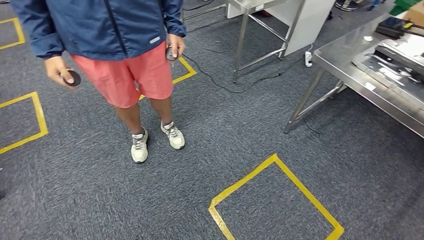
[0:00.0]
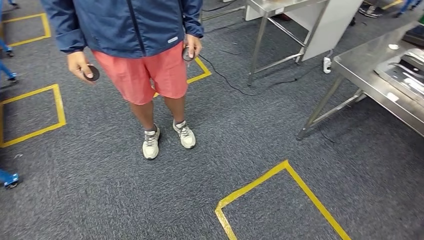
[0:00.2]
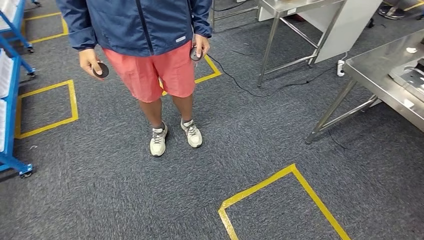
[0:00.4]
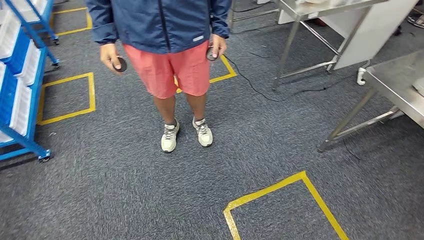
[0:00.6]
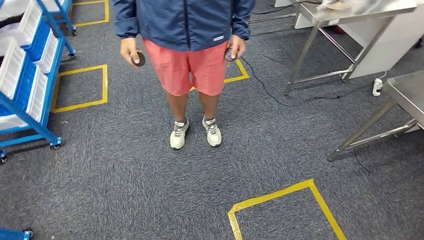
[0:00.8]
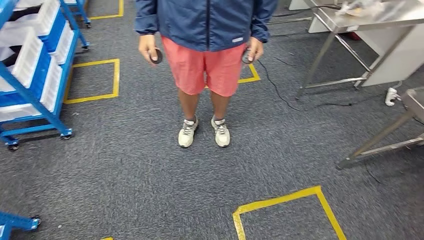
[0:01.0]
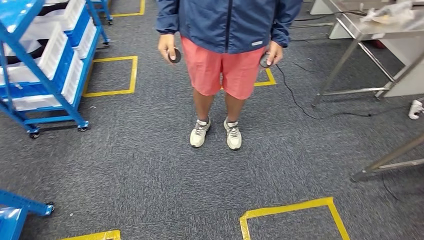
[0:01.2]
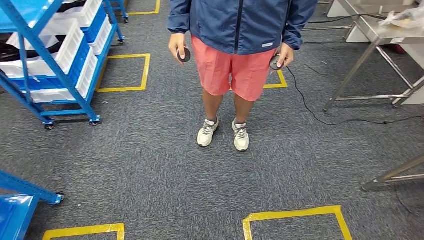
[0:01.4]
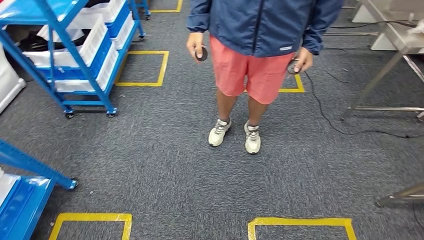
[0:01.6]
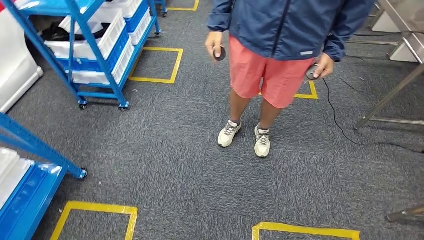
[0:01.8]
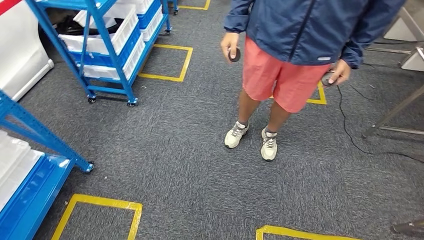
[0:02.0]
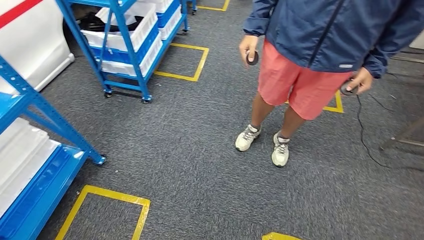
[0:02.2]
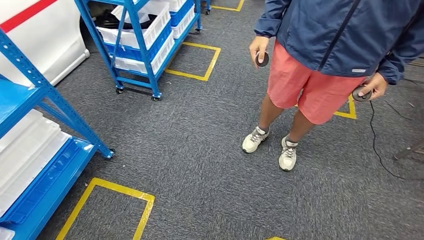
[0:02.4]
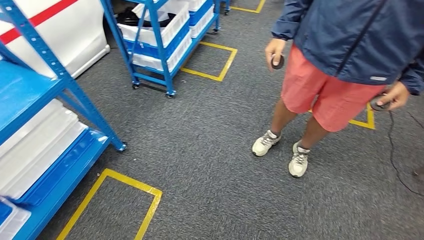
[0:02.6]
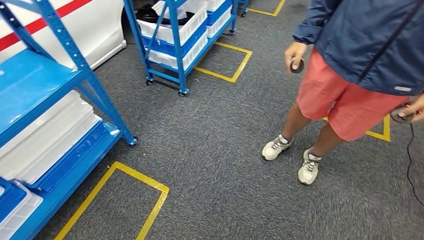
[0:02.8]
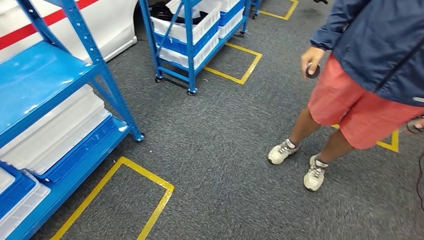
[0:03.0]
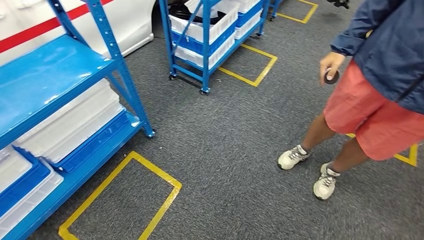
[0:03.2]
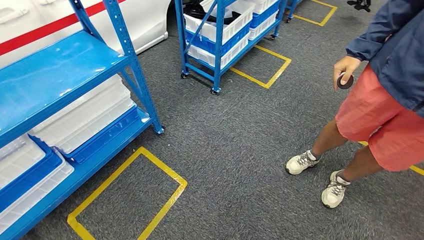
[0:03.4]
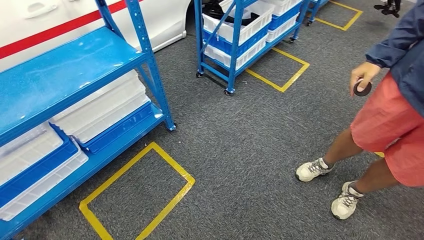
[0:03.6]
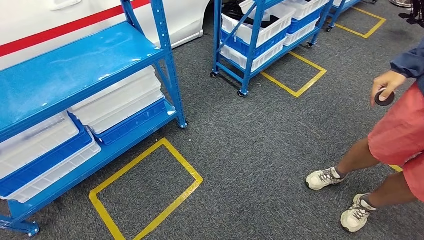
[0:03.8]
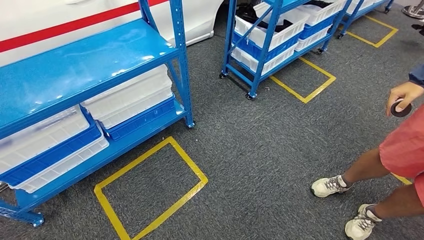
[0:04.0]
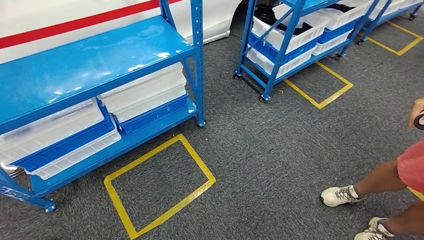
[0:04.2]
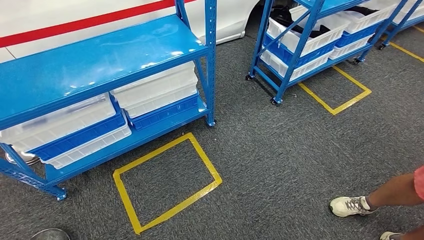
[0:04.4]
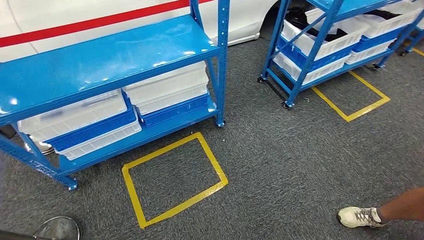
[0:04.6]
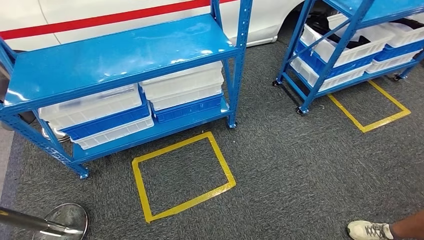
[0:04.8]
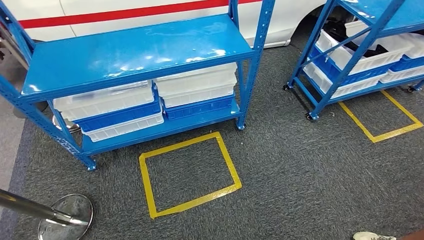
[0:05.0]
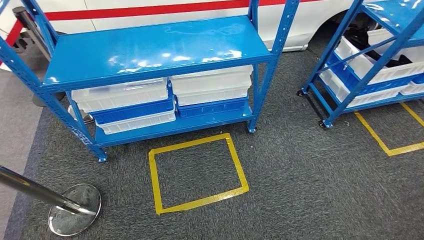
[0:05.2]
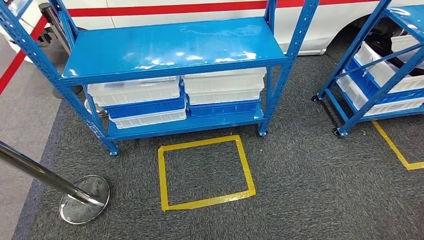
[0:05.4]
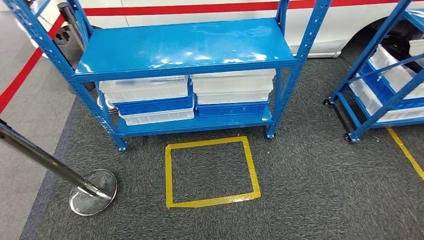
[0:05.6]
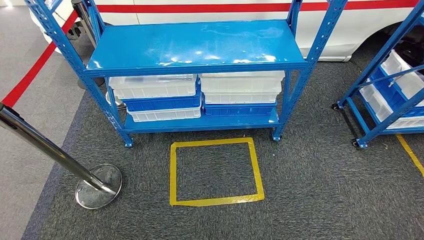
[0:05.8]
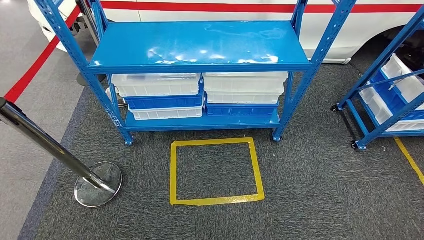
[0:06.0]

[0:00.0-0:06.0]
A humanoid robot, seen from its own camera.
Step, 0:00.0 to 0:06.0: Move to the initial position of the shelf.
